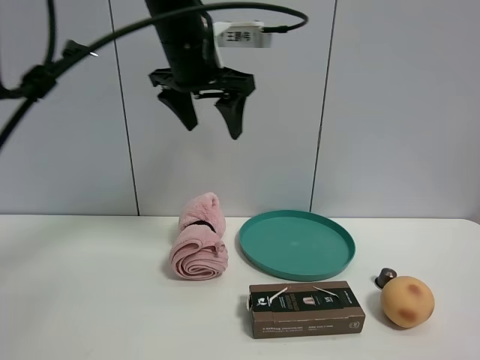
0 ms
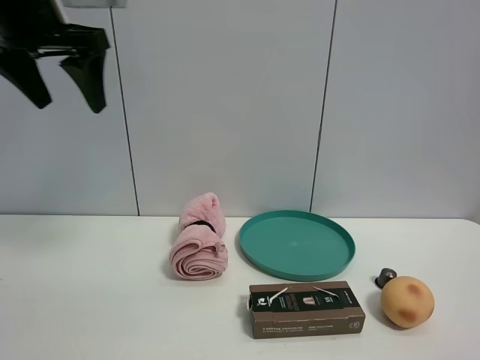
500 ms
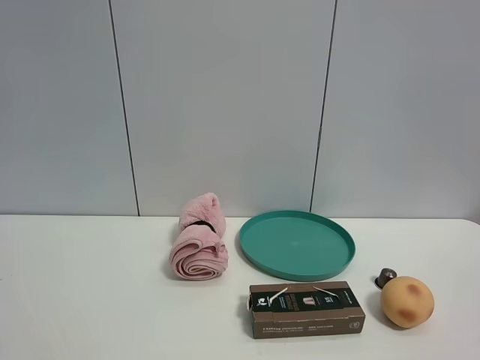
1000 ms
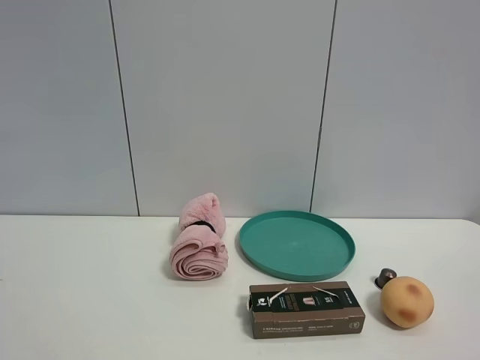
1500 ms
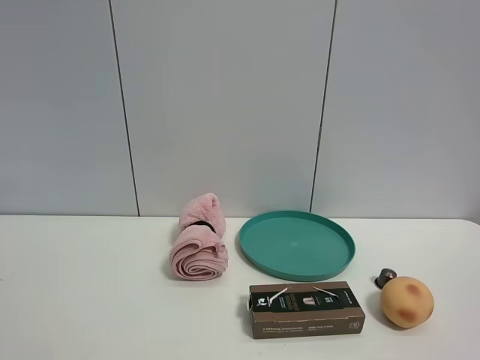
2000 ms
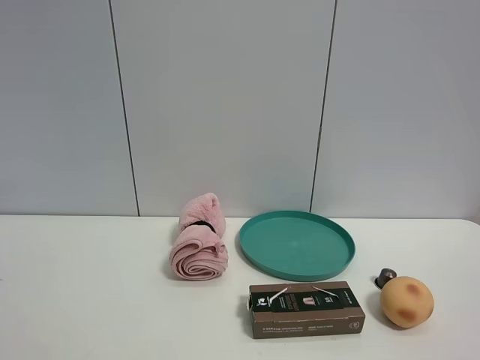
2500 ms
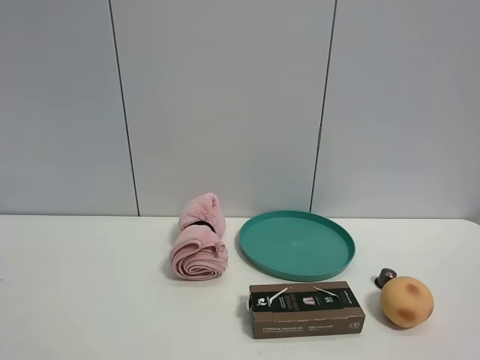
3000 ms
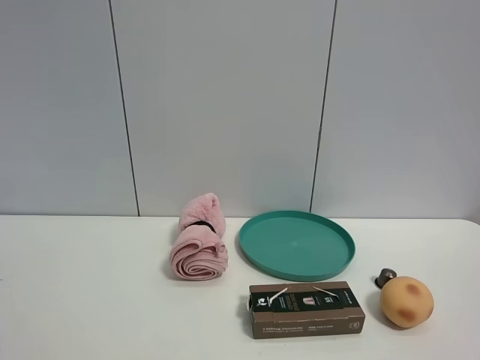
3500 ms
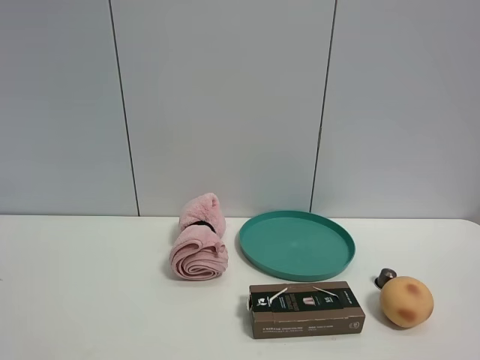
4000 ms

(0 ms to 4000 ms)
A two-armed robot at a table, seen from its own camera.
Task of the whole recording: the gripper move the object.
0 ms - 2000 ms: The left gripper travels backward and to the left by approximately 50 cm.

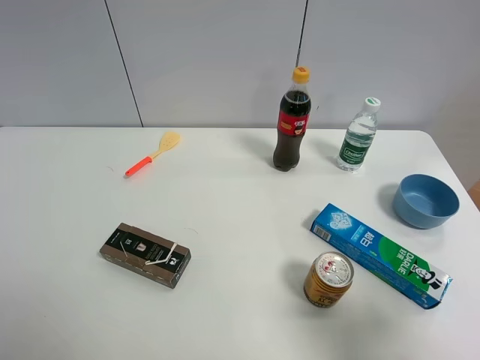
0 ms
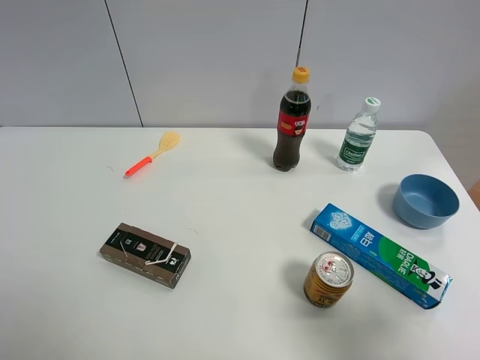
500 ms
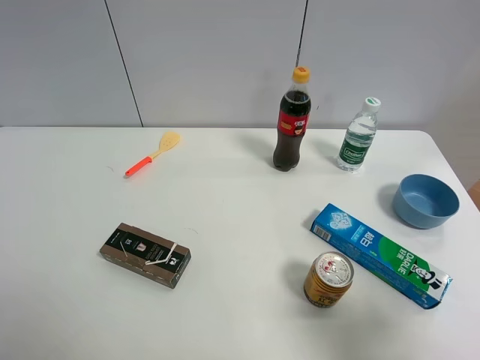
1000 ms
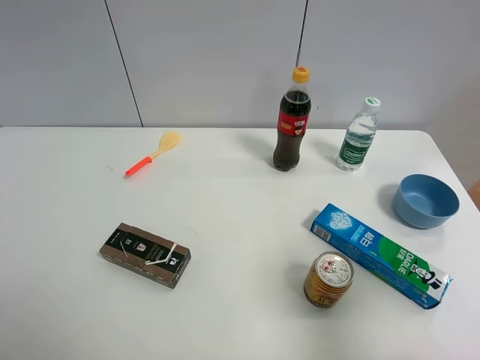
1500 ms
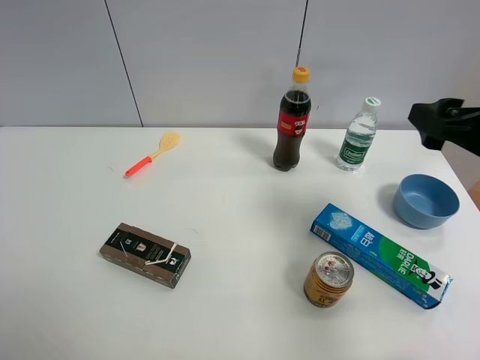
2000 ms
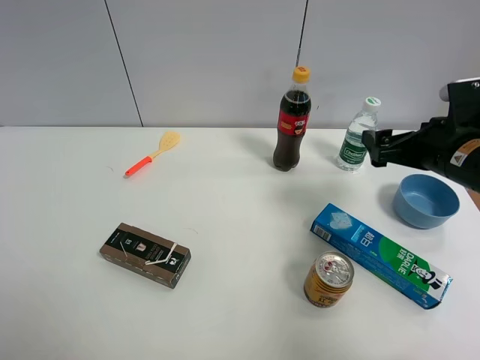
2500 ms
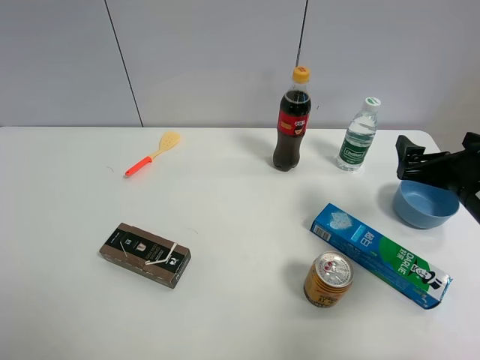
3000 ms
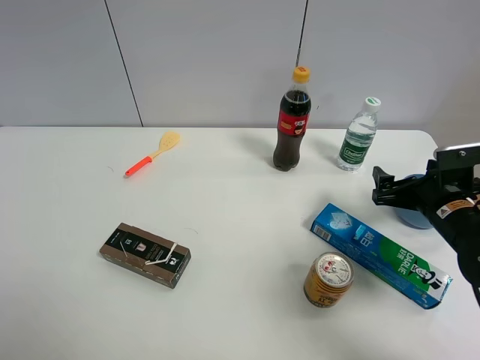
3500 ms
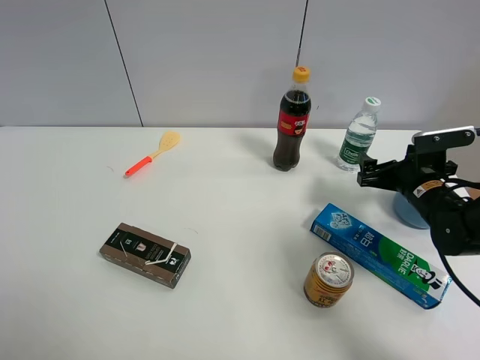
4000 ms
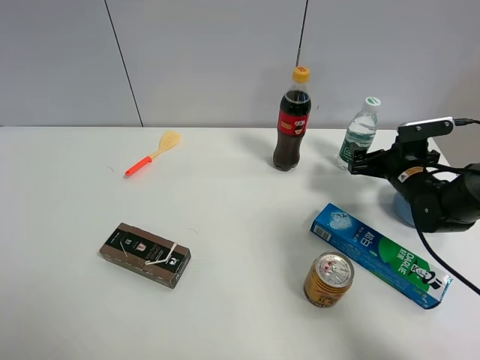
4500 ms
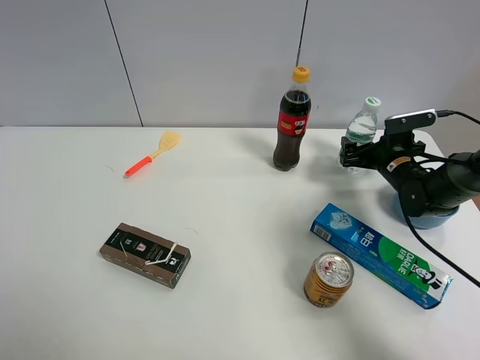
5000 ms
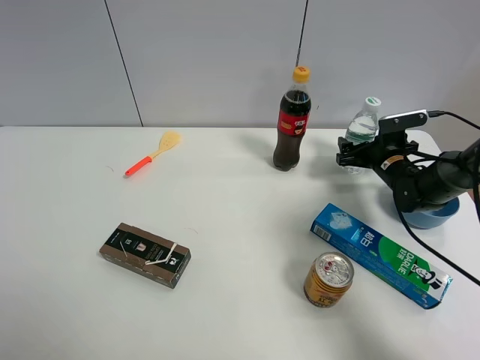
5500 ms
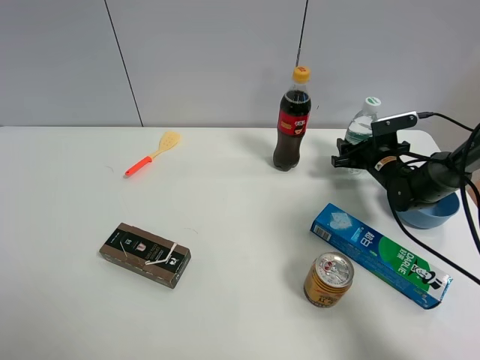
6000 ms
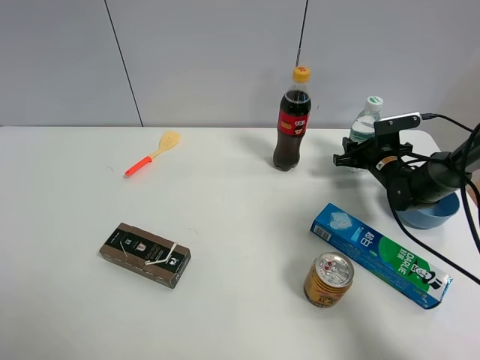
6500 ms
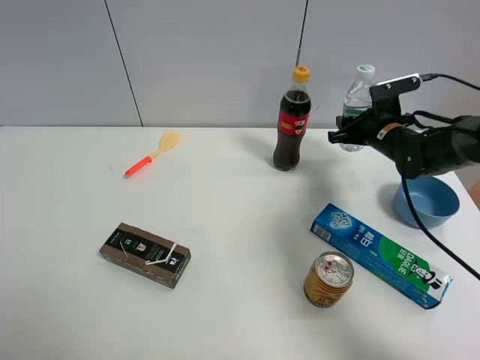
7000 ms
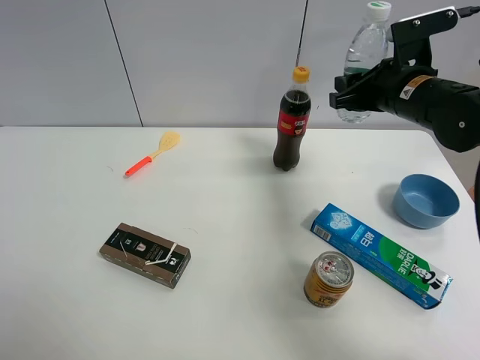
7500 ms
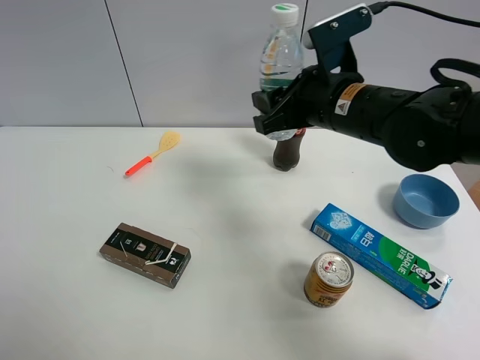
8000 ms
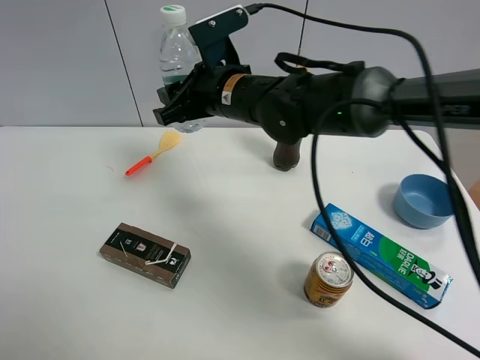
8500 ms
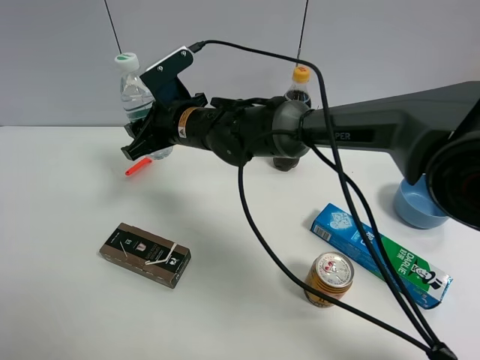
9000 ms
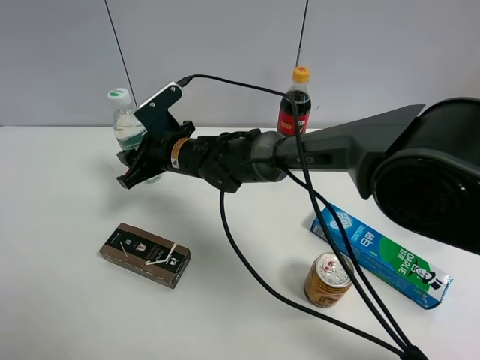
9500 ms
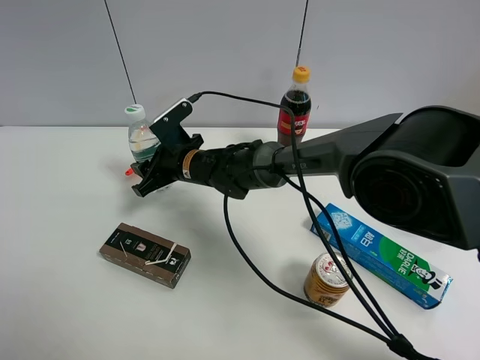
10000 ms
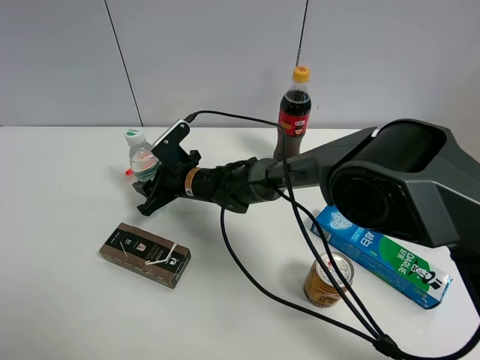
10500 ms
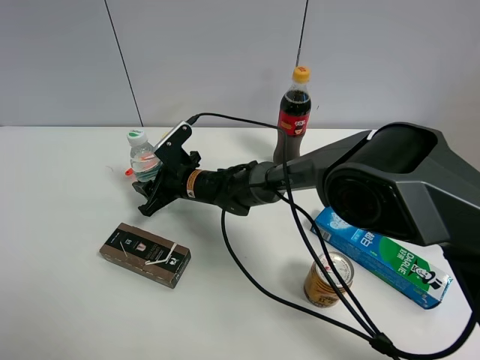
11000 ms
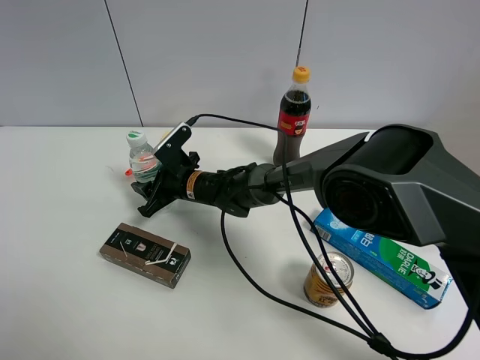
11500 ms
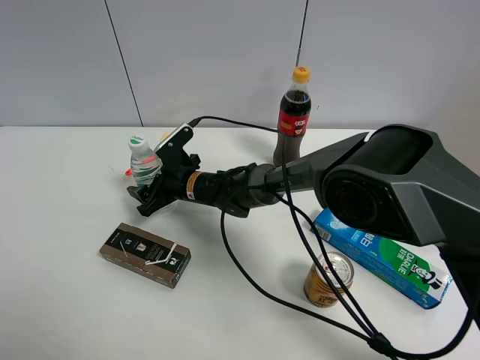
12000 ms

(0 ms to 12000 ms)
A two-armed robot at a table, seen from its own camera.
Task of the whole recording: the gripper move the object.
Step, 0 ms - 6000 ms: Grasp the YiBao mineral water with the right gripper.
0 ms - 2000 ms: The right gripper heads forward, covering some 20 cm.
2000 ms - 4000 ms: The right gripper heads downward and forward, covering roughly 20 cm.
4000 ms - 6000 ms: The right gripper shifts roughly 10 cm forward and downward, and closes its fingers.
6000 ms - 8000 ms: The right gripper shifts about 30 cm upward, to the left and backward.
8000 ms - 10000 ms: The right gripper travels to the left, downward and forward by about 25 cm.
10000 ms - 12000 ms: The right gripper opens up.

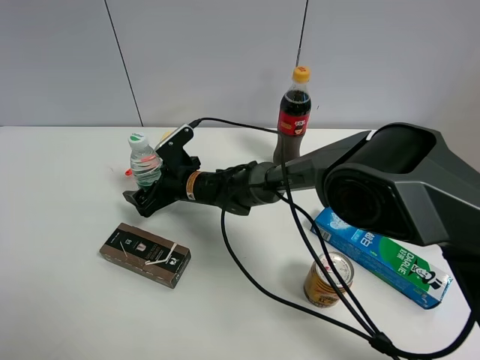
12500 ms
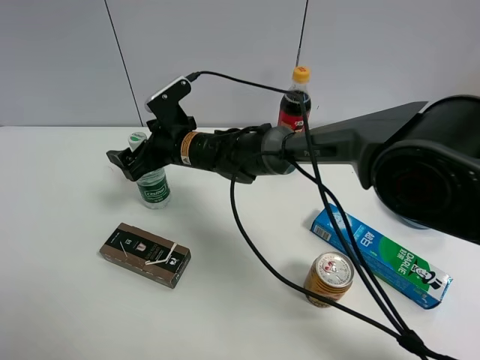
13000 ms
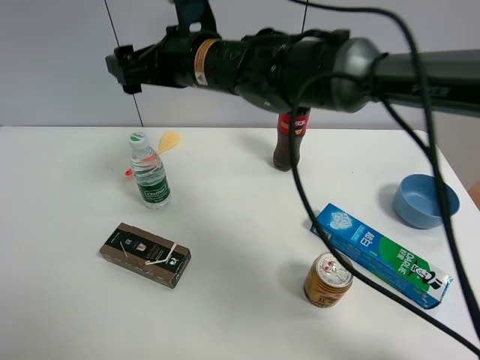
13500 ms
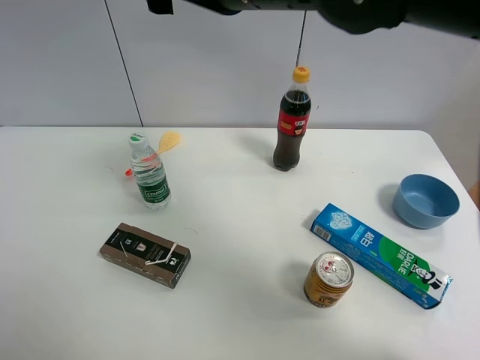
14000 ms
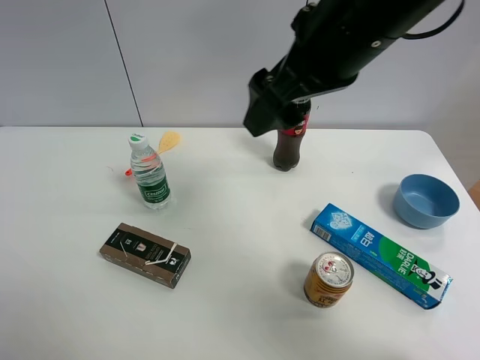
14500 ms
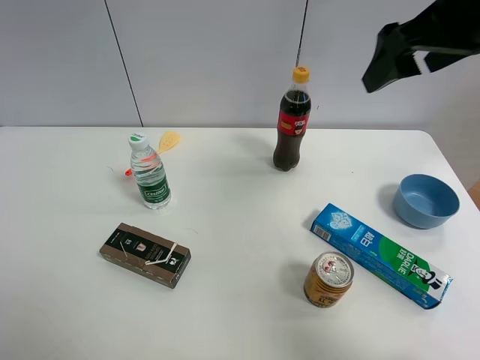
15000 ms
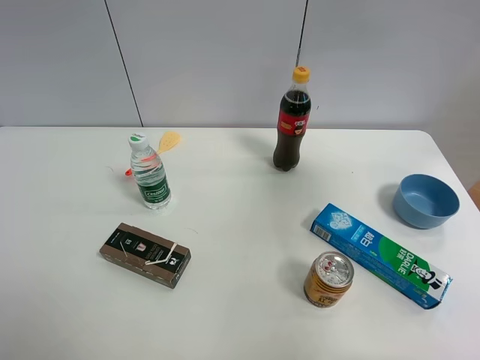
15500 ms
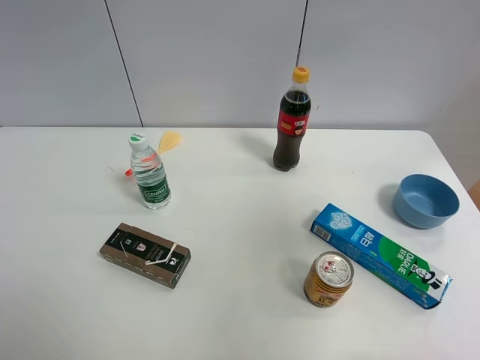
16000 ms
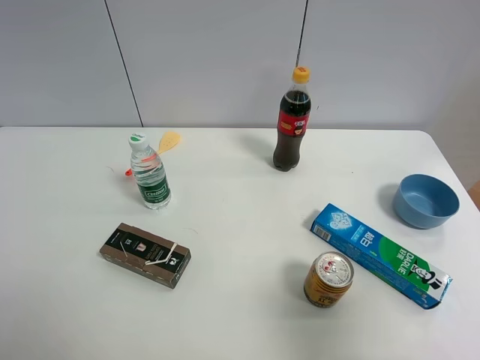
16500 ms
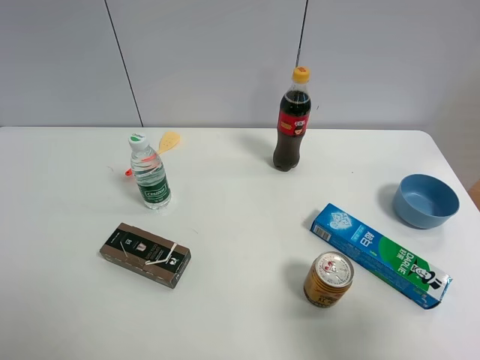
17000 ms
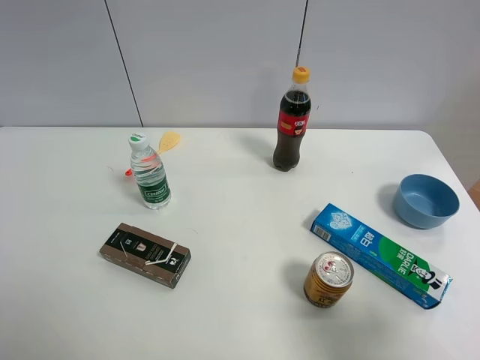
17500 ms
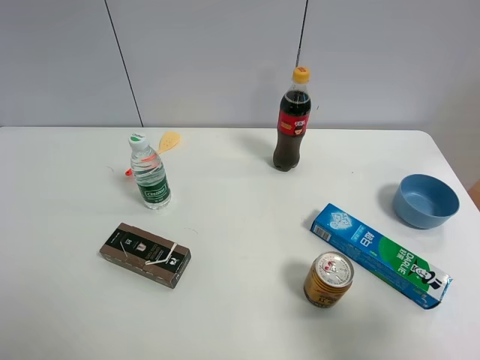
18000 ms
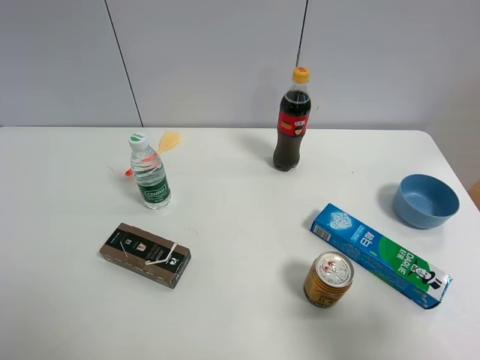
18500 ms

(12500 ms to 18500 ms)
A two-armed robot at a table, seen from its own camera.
Task of the whole recording: the gripper move the object.
12500 ms - 14500 ms: The right gripper travels upward and to the right by roughly 35 cm.
14500 ms - 16500 ms: The right gripper shifts roughly 30 cm backward and to the right.
16500 ms - 18500 ms: The right gripper goes roughly 5 cm downward.

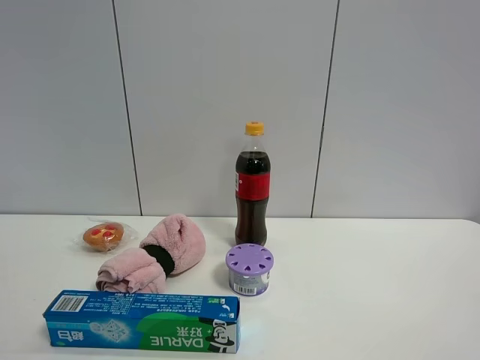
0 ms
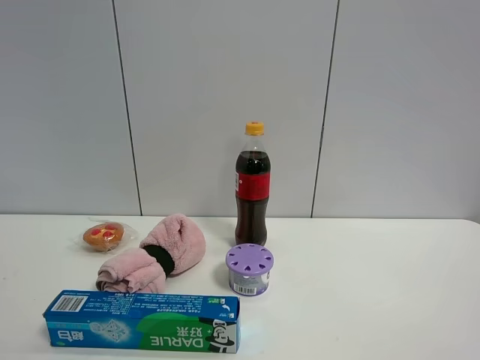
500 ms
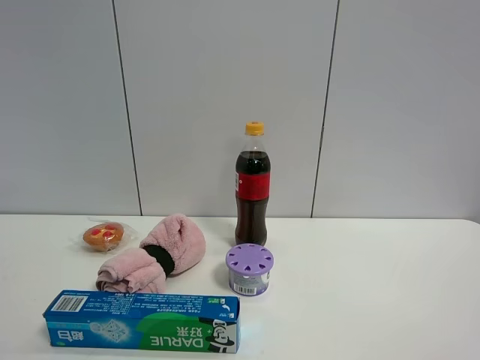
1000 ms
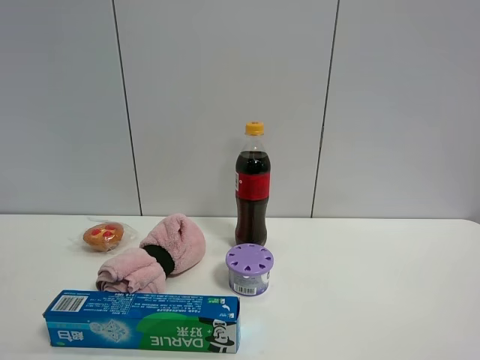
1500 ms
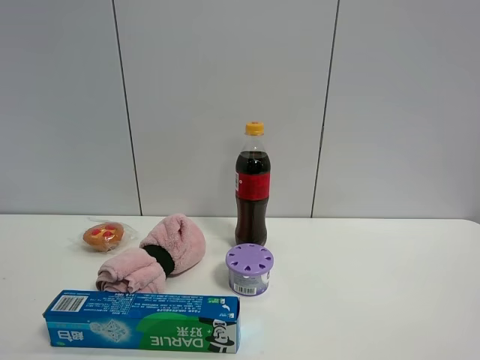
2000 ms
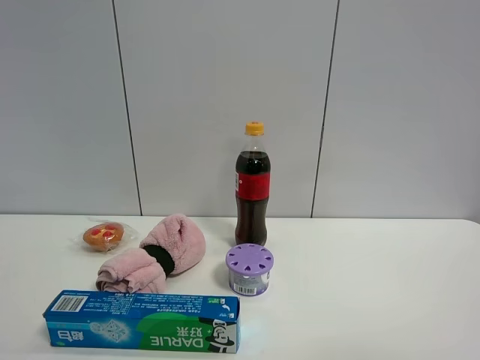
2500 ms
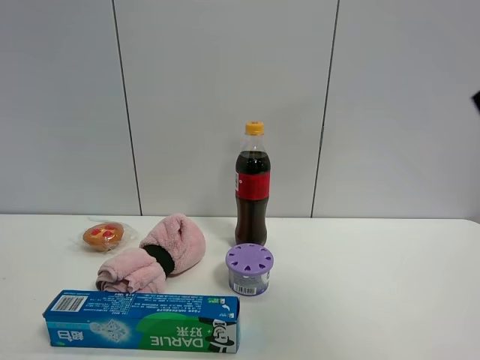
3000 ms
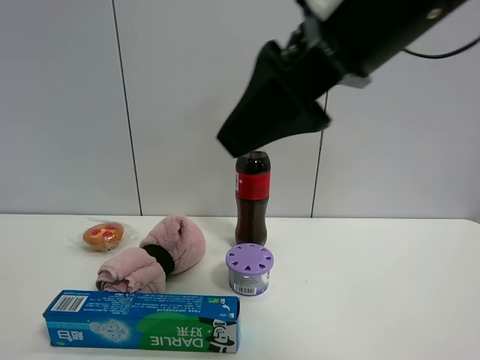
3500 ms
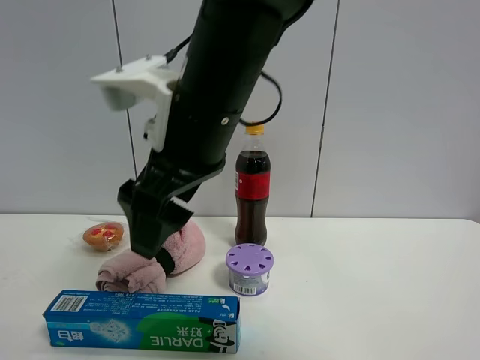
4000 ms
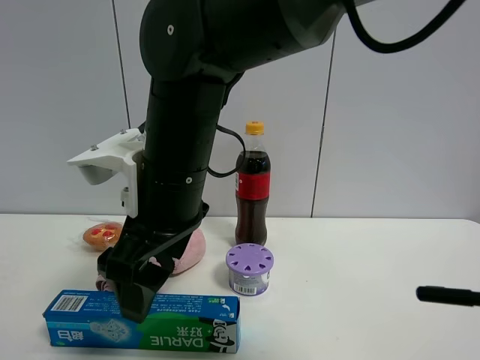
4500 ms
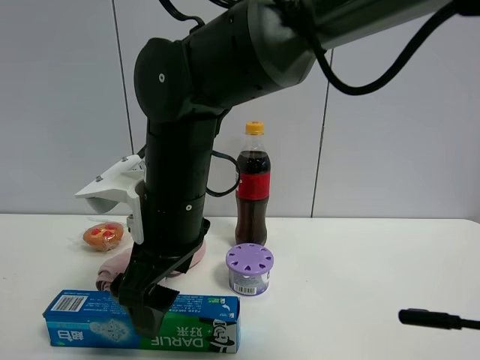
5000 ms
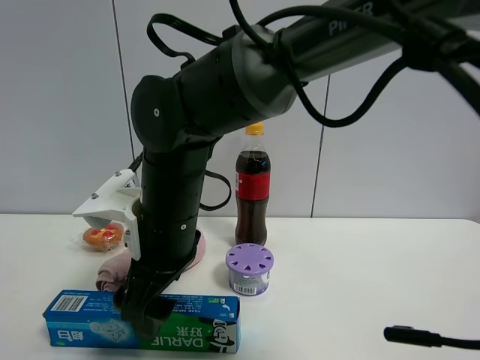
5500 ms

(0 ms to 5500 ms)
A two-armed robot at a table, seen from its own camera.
Task of the whole recording: the gripper move the object.
0 ms - 2000 ms: The two grippers keep their place.
2000 ms - 3500 ms: The right gripper goes roughly 30 cm to the left and forward.
3500 ms - 5500 ms: The right gripper is displaced downward and to the left by some 25 cm.
